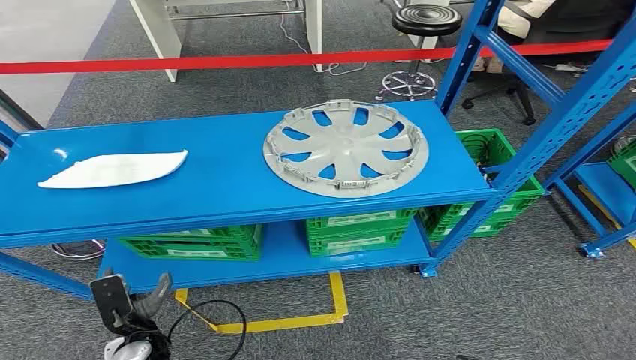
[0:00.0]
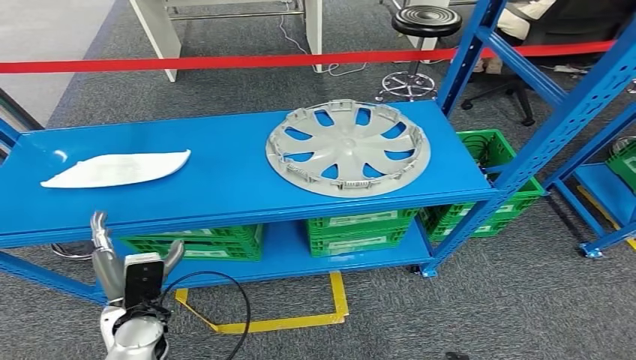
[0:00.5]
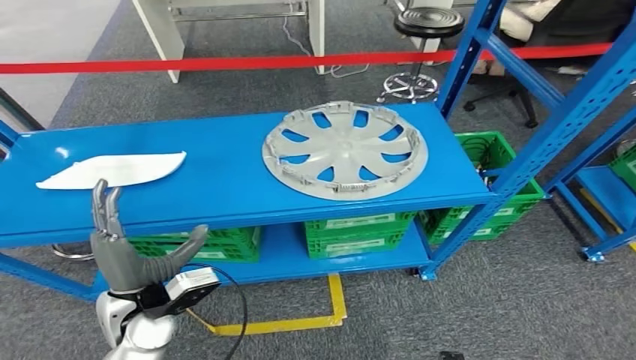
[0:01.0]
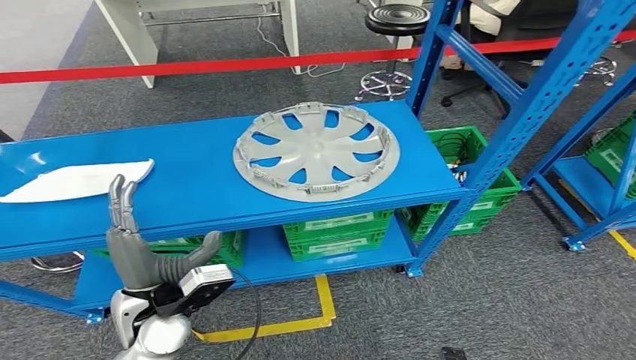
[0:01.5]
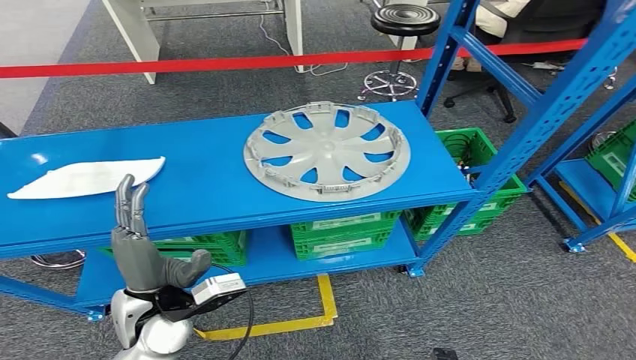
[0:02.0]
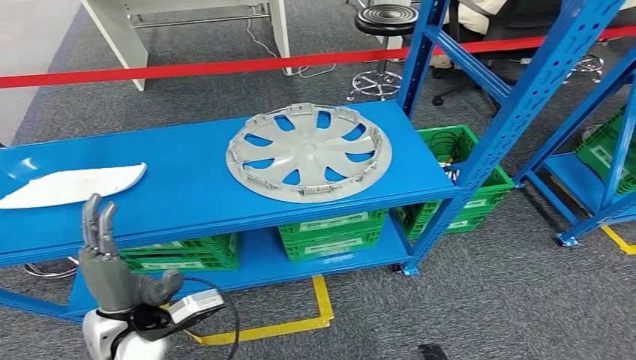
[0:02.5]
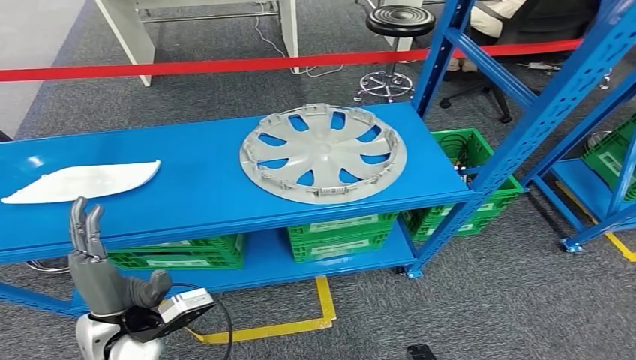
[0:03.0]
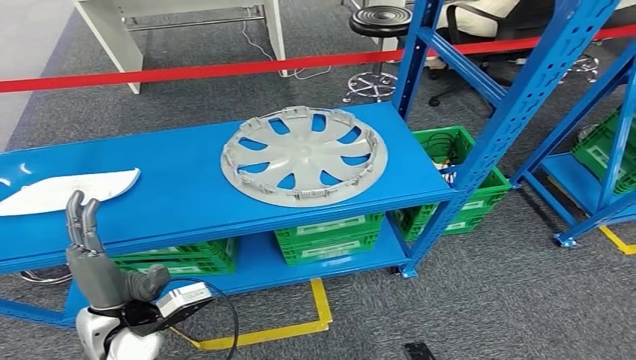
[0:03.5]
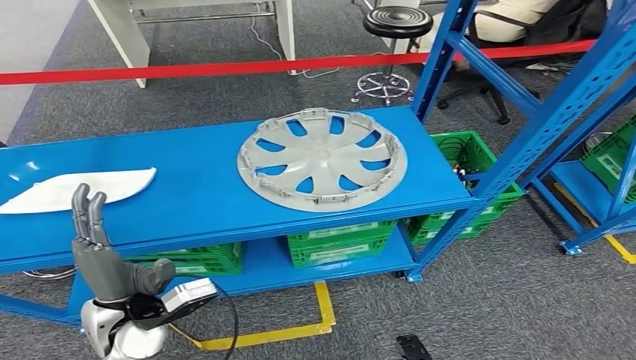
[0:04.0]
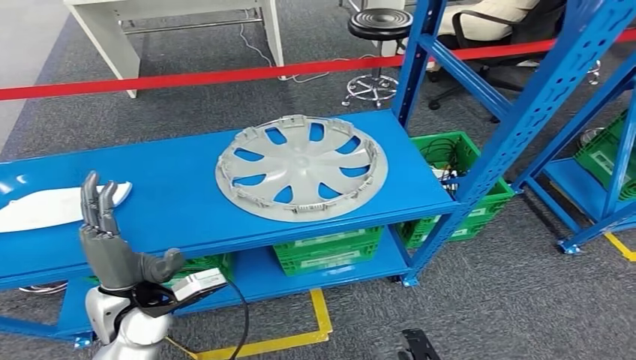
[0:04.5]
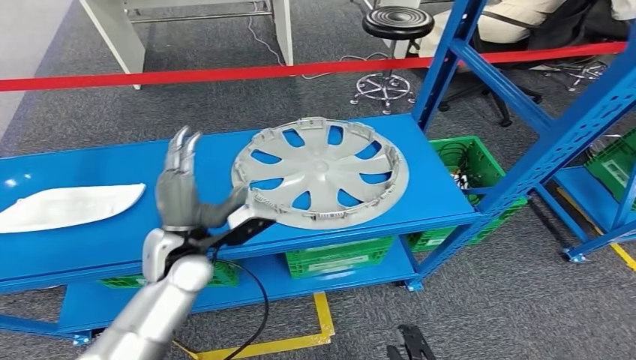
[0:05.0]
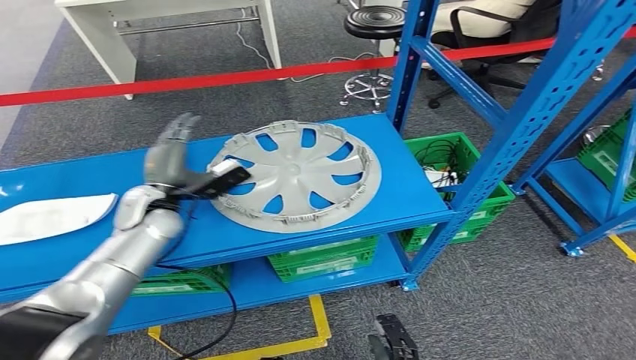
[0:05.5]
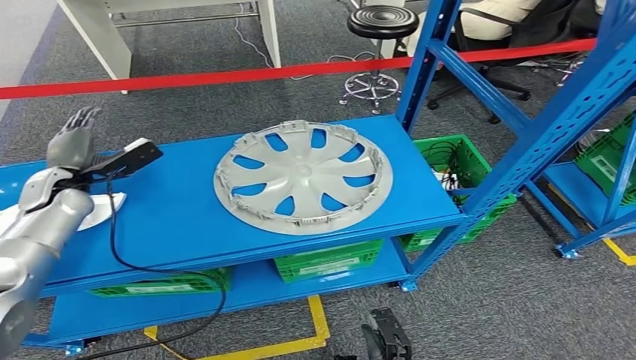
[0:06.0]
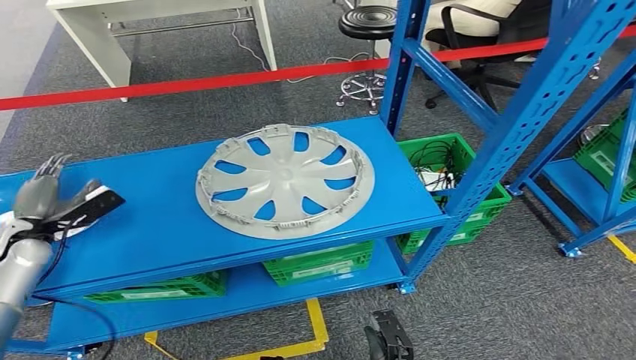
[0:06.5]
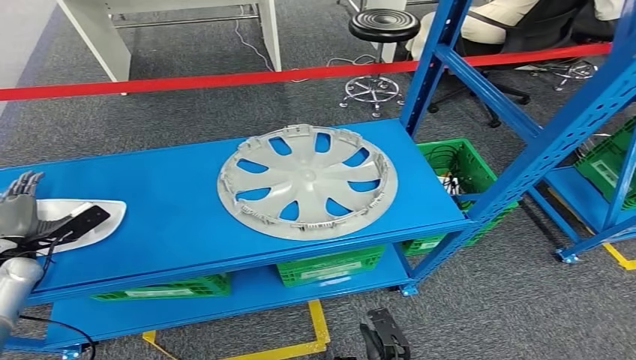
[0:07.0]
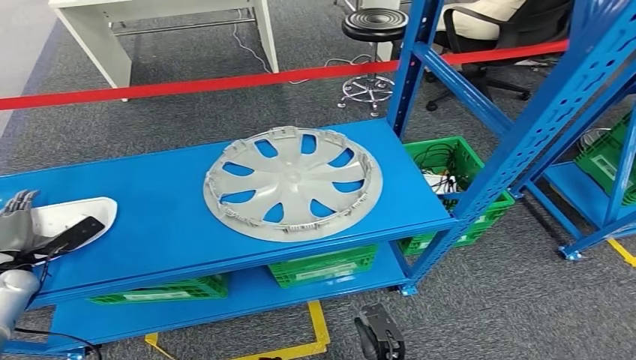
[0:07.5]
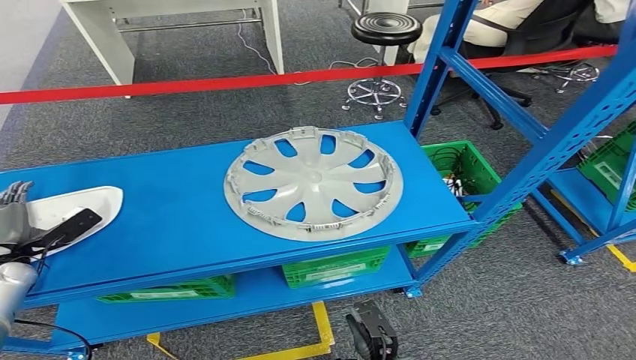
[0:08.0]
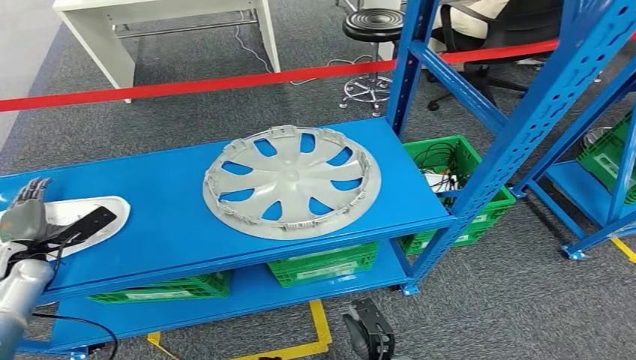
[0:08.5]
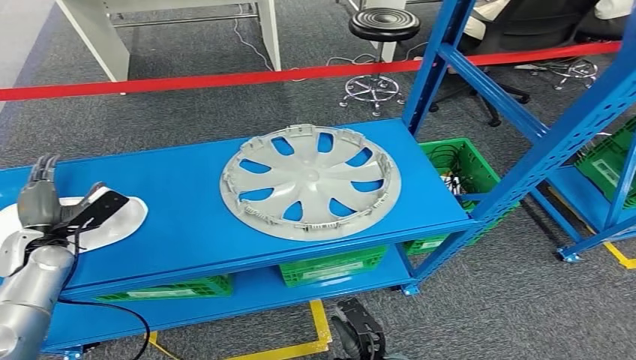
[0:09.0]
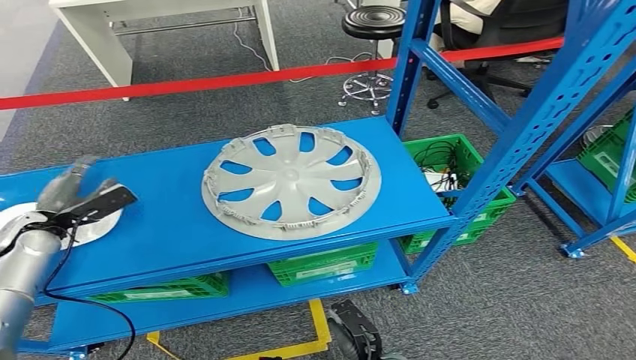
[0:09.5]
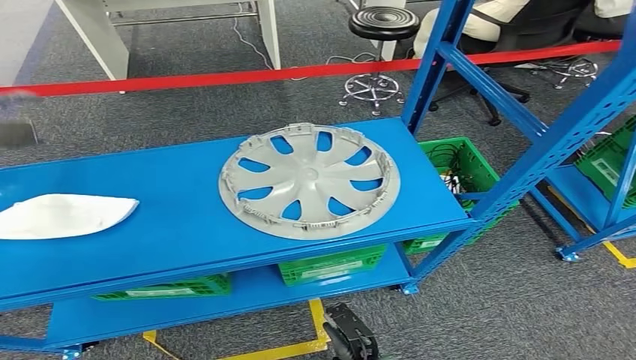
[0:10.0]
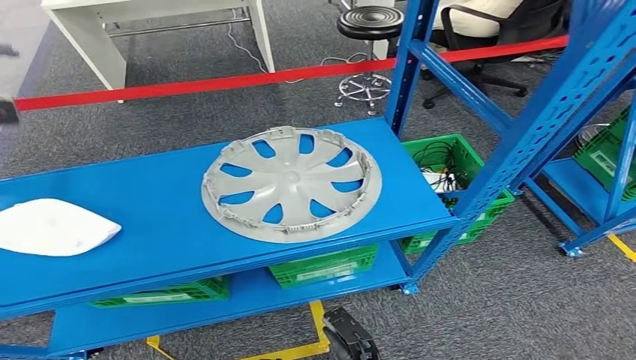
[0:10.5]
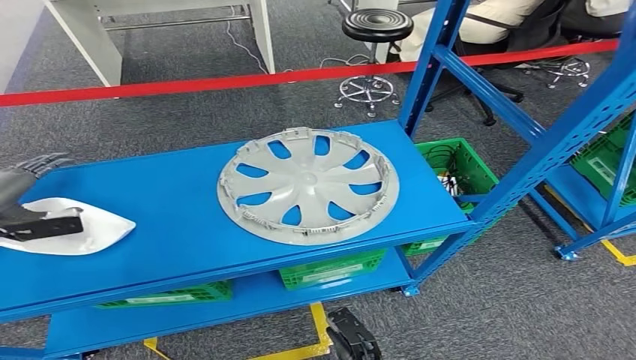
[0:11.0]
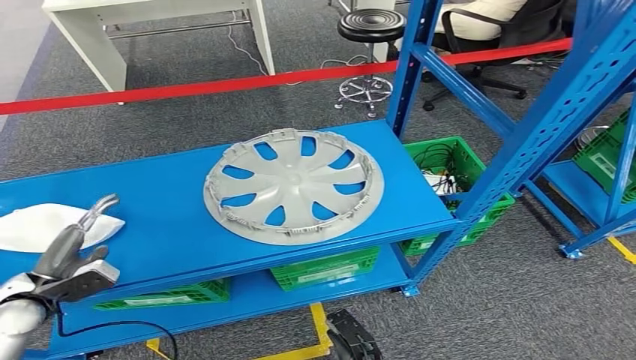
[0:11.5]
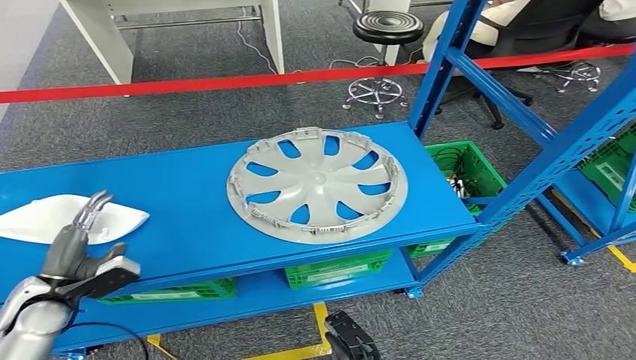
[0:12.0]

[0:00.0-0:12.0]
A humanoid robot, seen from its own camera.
0:08.0 to 0:10.0: The left hand moves upward, some 25 cm.

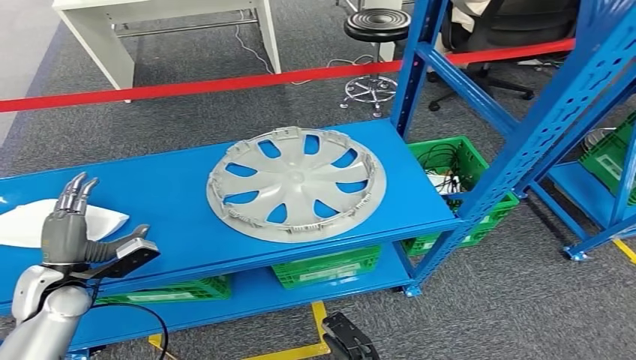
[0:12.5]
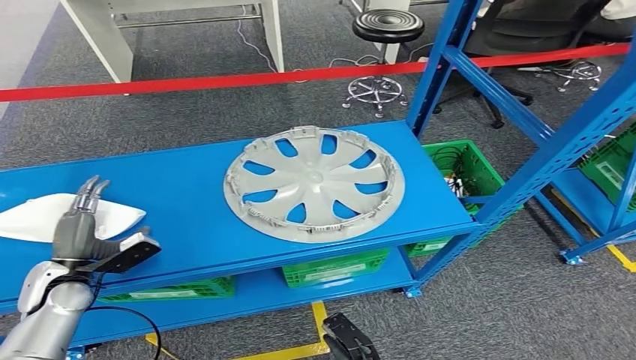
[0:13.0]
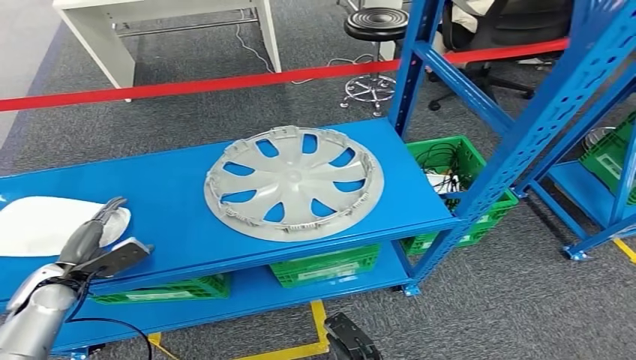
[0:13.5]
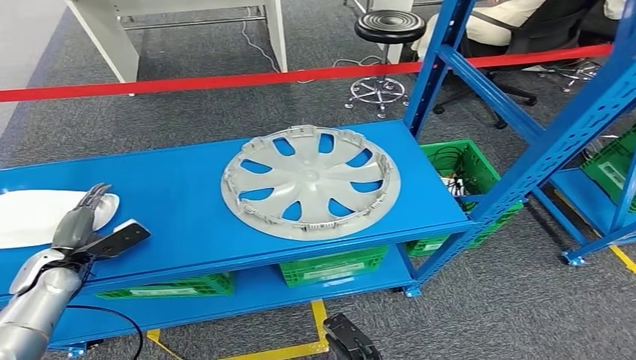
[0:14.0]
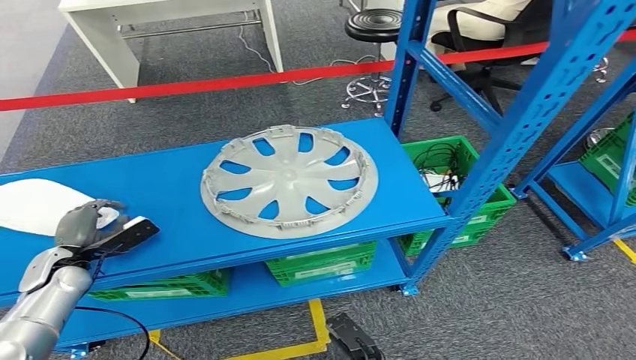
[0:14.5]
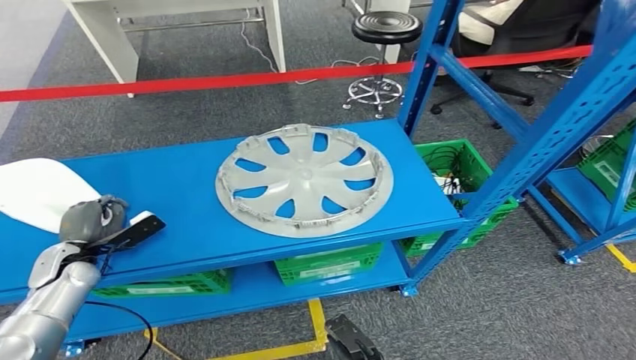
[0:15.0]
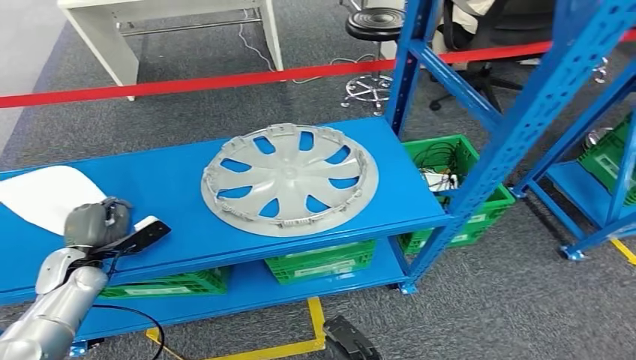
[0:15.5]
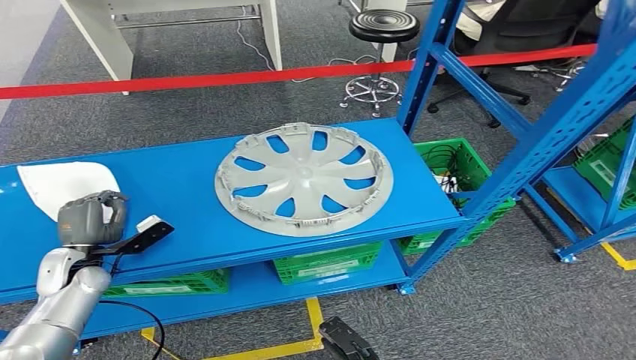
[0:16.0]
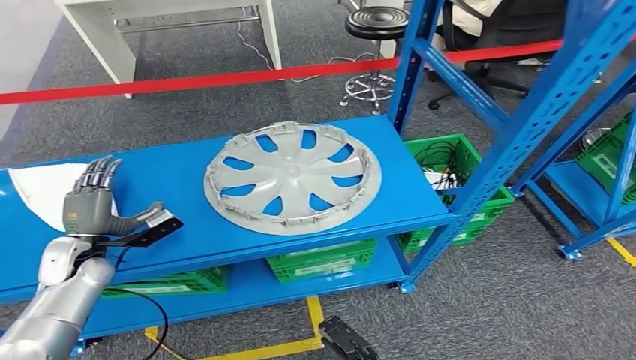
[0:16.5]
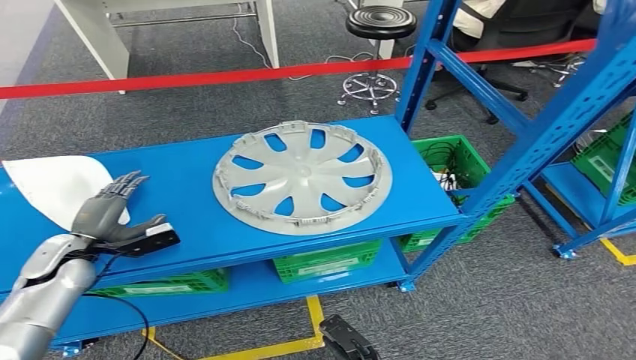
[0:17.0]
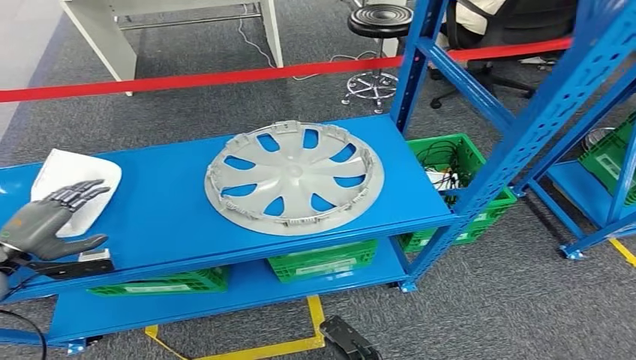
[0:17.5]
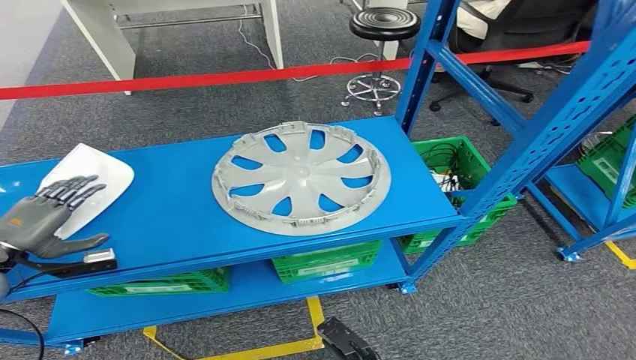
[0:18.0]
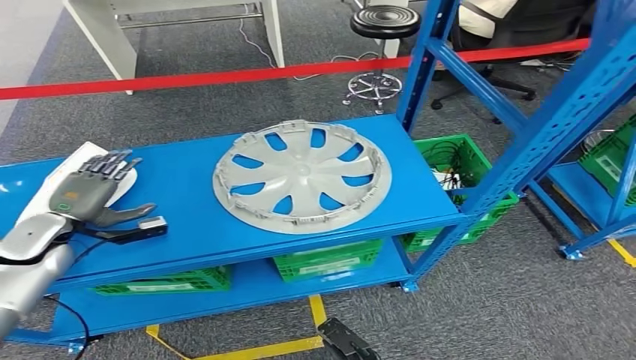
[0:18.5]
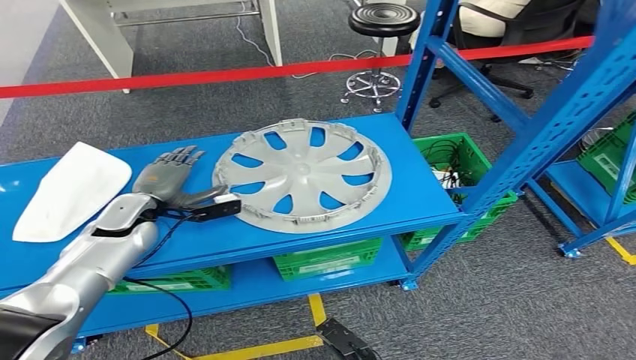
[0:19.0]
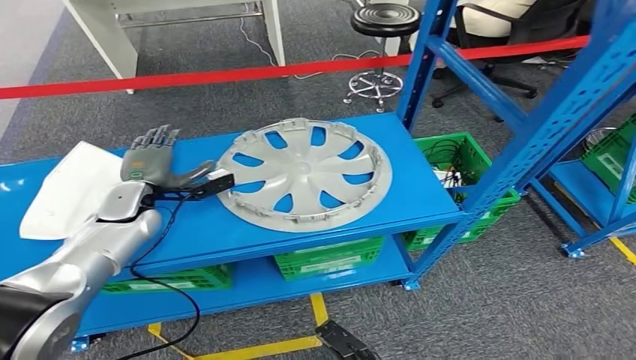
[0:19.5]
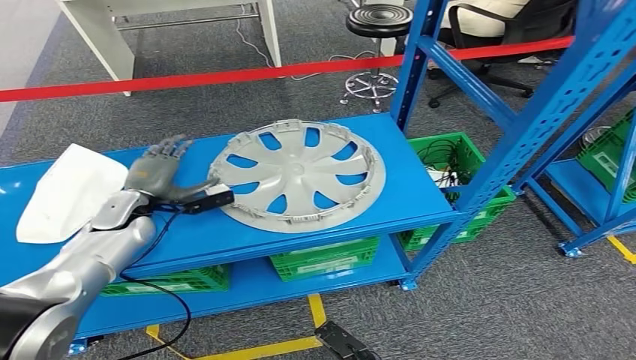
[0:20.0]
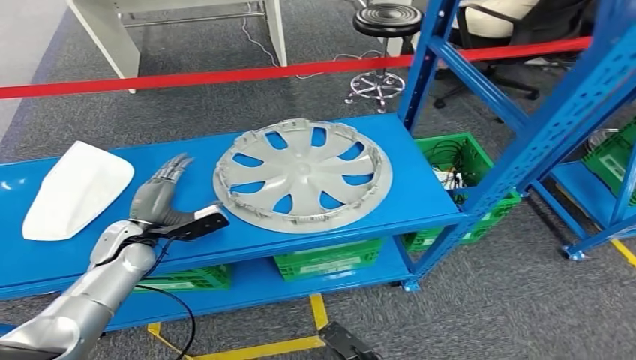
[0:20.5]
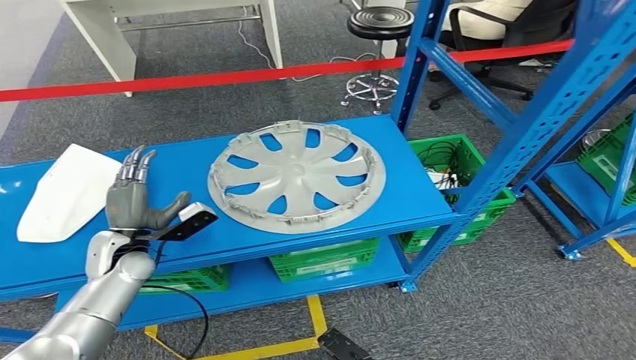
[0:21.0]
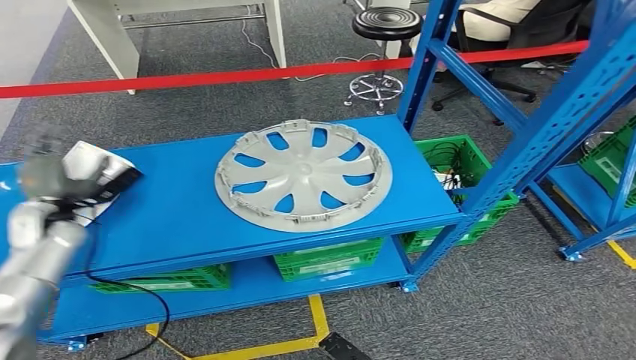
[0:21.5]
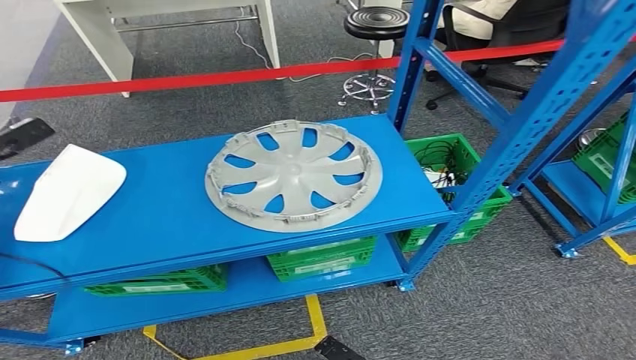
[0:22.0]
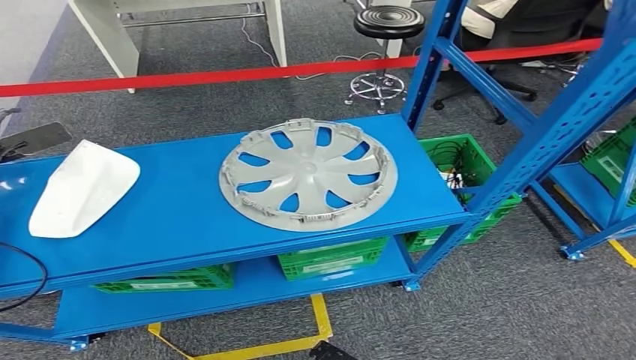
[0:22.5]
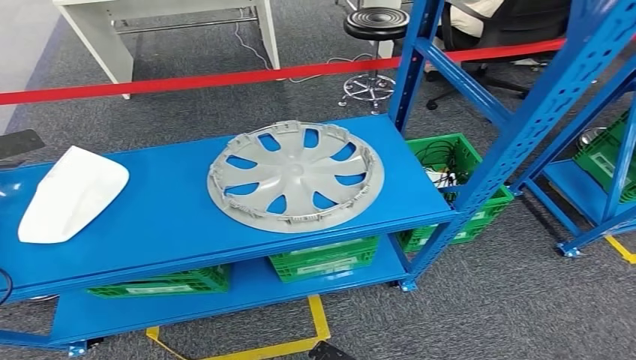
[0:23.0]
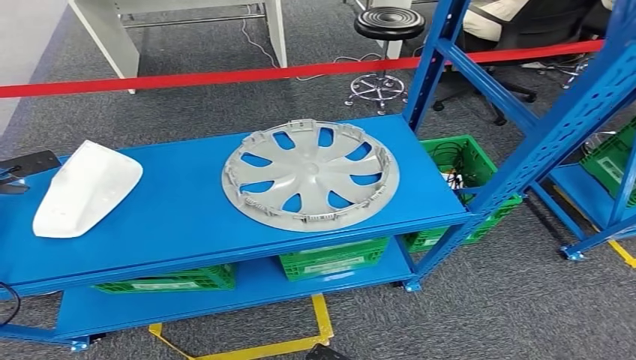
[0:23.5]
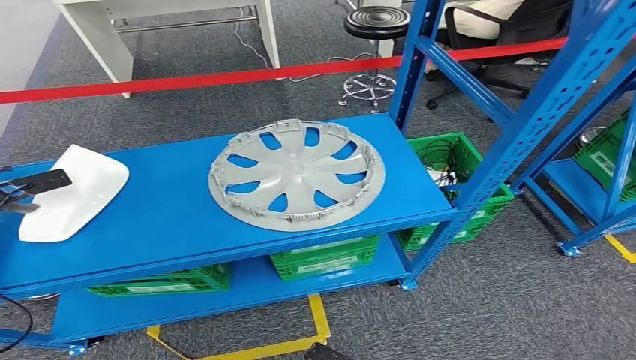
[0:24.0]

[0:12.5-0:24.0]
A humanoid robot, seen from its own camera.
0:20.0 to 0:22.0: The left hand is displaced to the left and upward by roughly 25 cm.
0:22.0 to 0:24.0: The left hand shifts about 5 cm downward.
